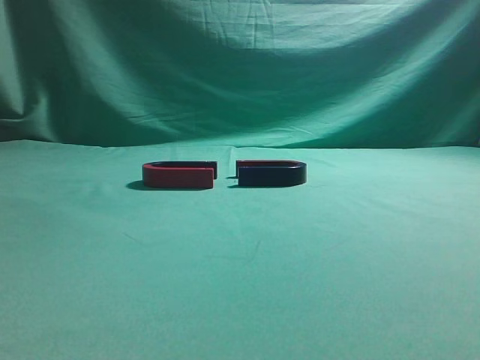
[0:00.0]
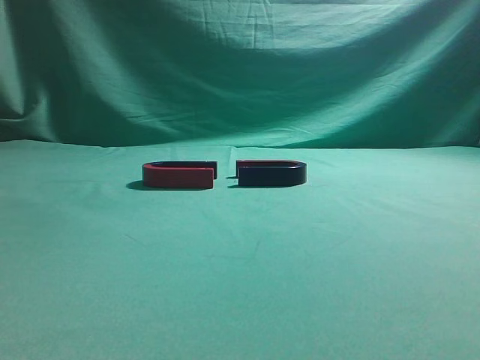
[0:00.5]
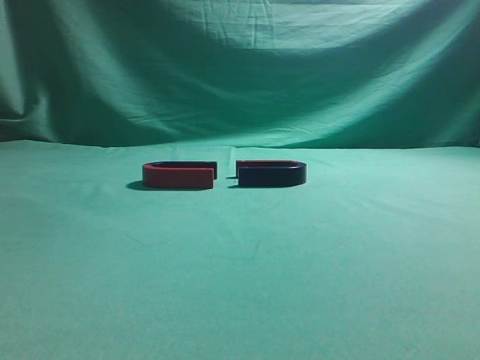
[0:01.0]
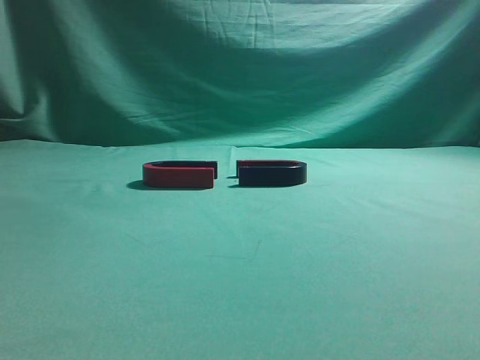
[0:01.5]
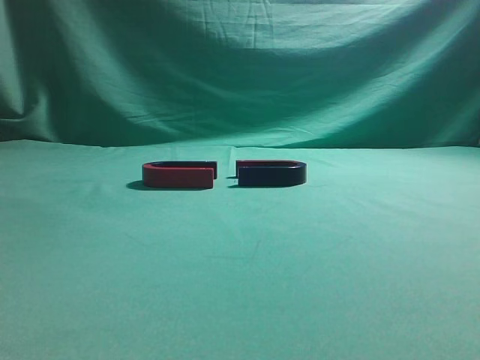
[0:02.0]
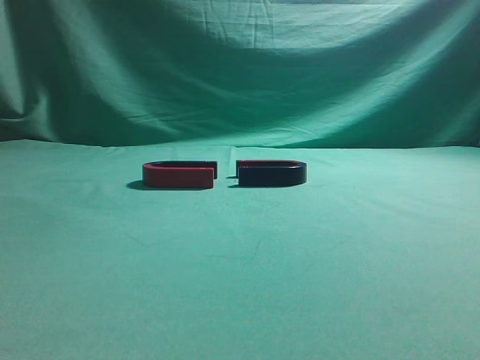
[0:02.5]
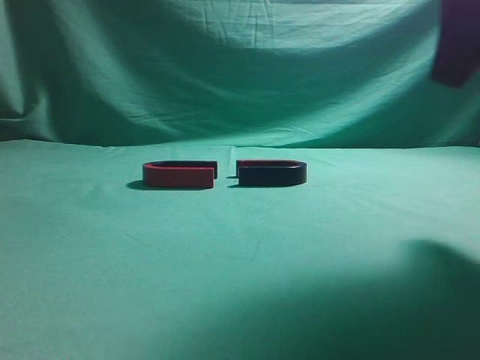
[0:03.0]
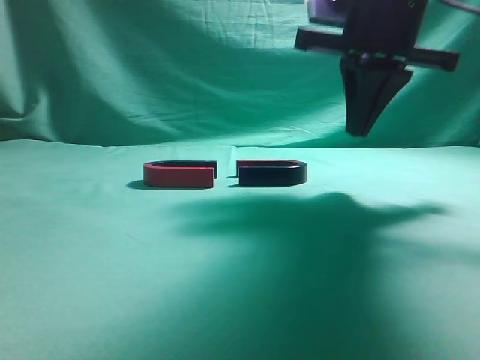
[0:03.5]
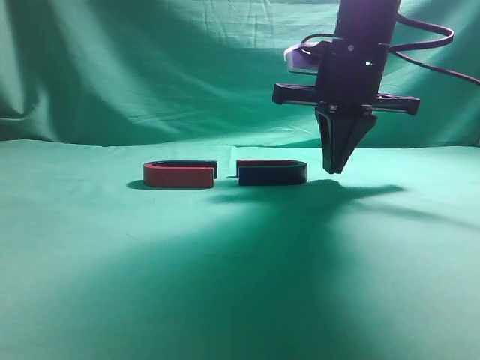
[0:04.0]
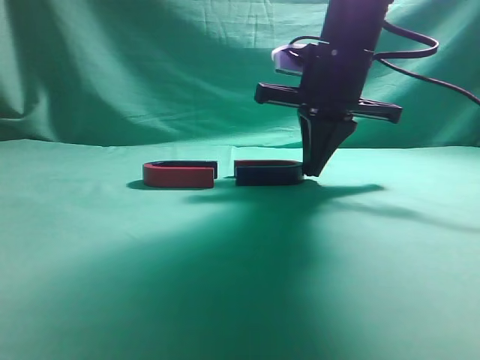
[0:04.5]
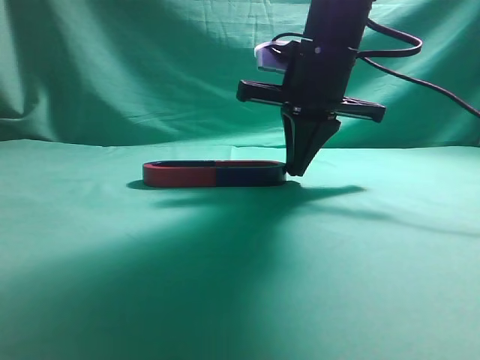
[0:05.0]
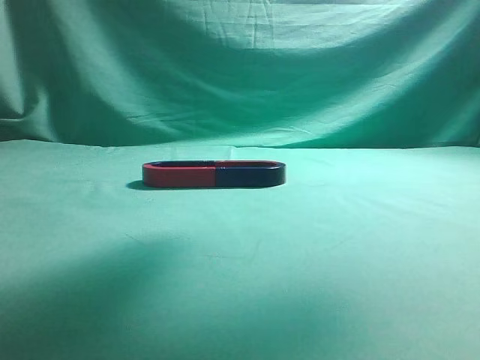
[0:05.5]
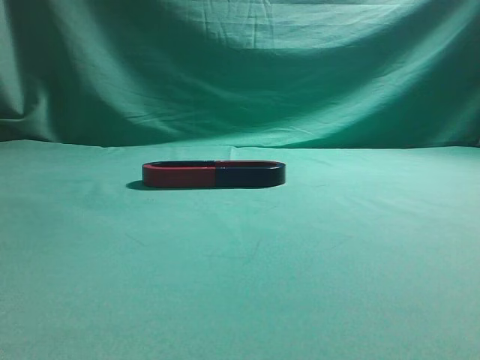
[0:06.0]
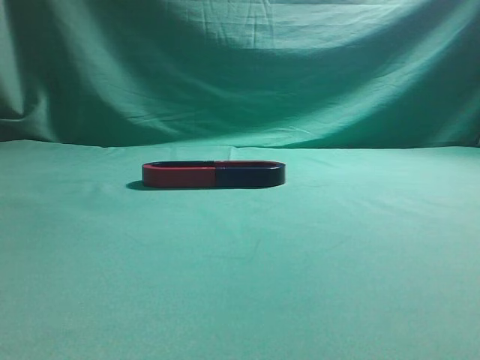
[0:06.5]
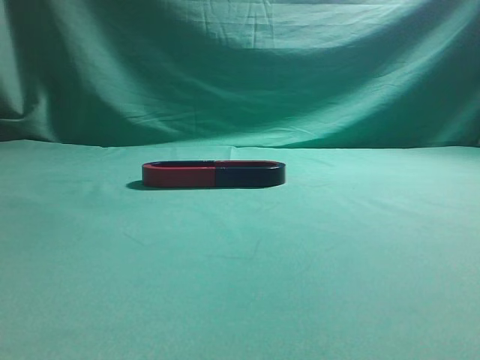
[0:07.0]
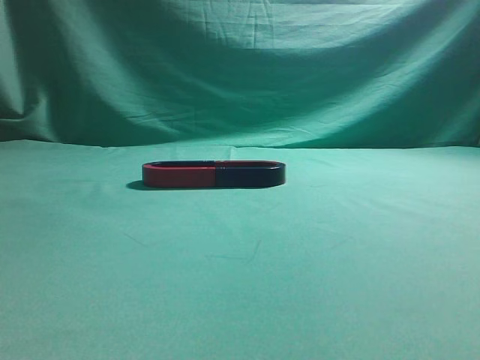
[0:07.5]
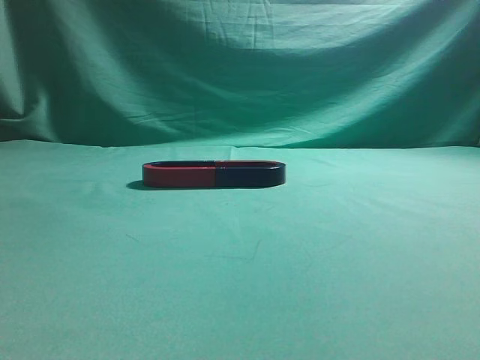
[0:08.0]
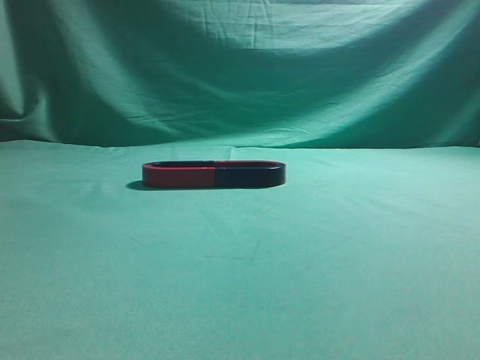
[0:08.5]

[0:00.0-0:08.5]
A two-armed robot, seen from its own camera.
Task of the whole recording: push the magnet on the table from its original position to another position.
Step, 0:00.0 to 0:05.0: Push the magnet on the right to connect the magnet on the left.
0:02.0 to 0:04.0: The right gripper shifts roughly 35 cm forward and to the left.
0:04.0 to 0:06.5: The right gripper heads backward and upward, covering about 40 cm.
